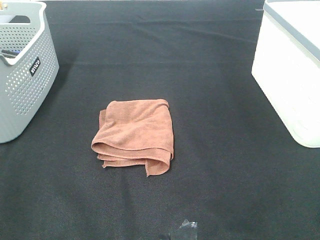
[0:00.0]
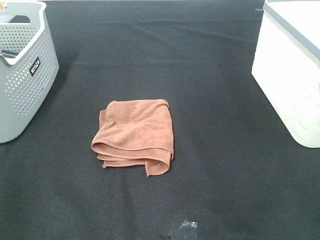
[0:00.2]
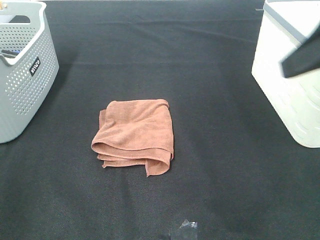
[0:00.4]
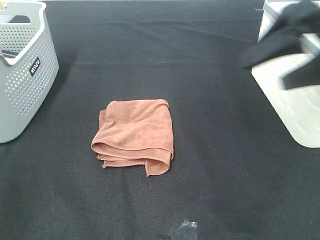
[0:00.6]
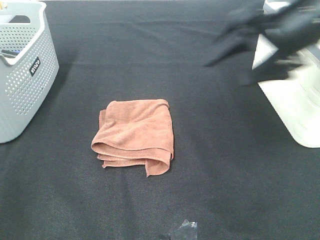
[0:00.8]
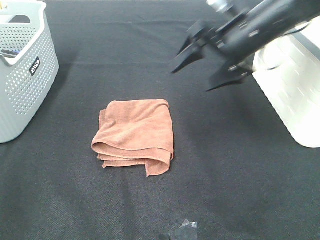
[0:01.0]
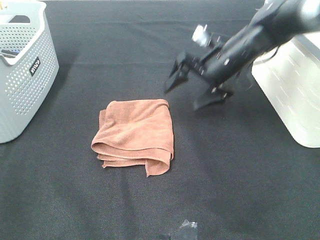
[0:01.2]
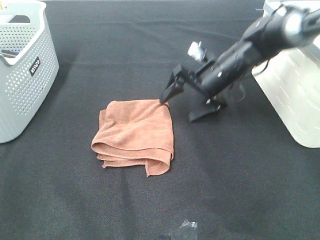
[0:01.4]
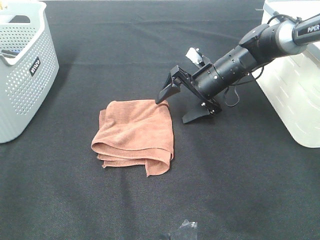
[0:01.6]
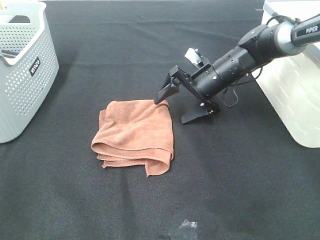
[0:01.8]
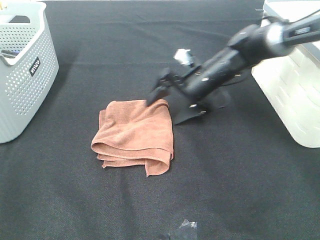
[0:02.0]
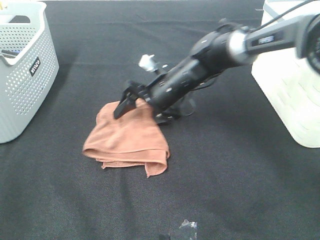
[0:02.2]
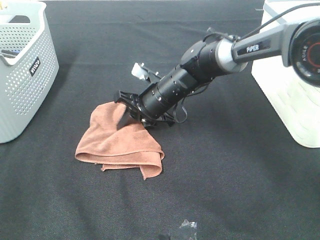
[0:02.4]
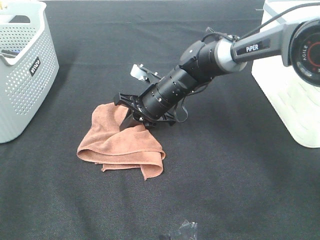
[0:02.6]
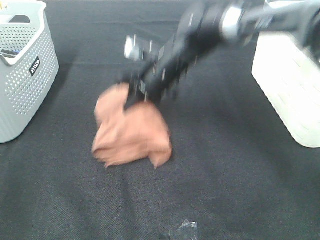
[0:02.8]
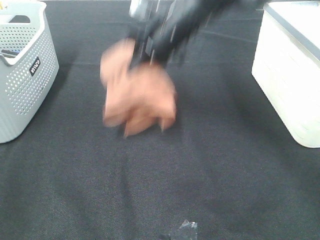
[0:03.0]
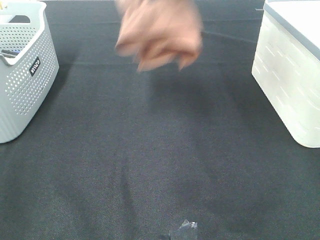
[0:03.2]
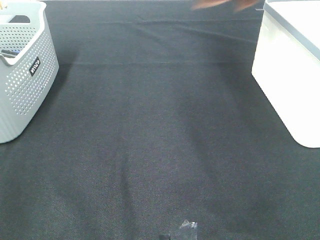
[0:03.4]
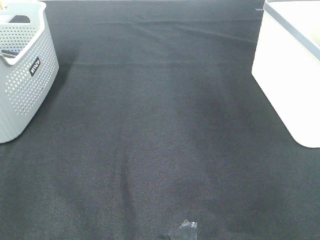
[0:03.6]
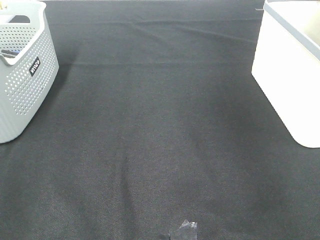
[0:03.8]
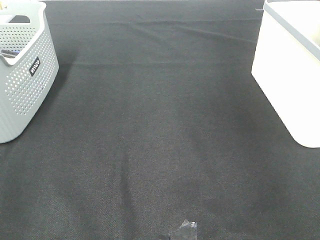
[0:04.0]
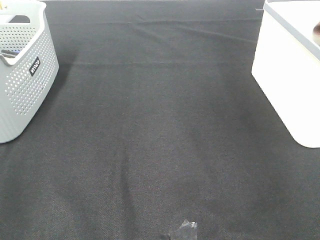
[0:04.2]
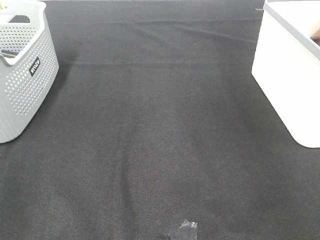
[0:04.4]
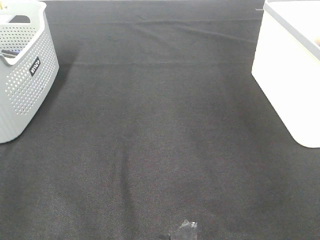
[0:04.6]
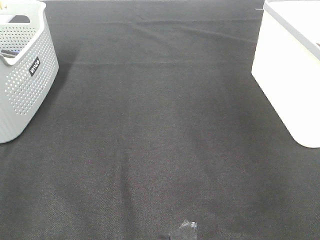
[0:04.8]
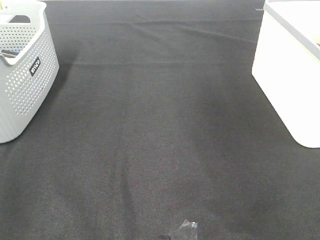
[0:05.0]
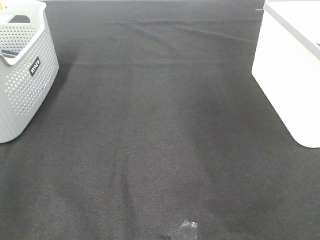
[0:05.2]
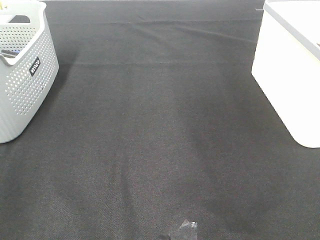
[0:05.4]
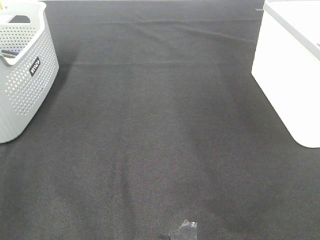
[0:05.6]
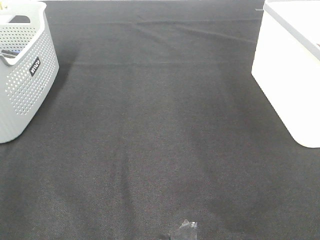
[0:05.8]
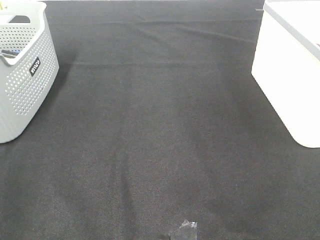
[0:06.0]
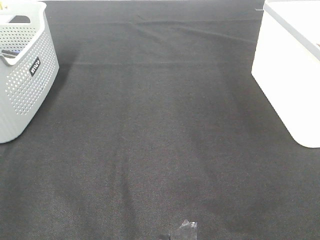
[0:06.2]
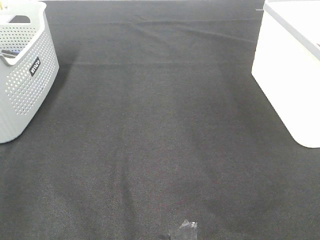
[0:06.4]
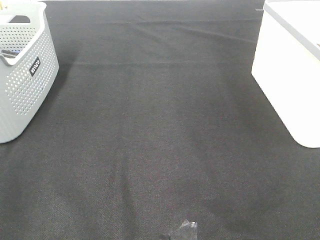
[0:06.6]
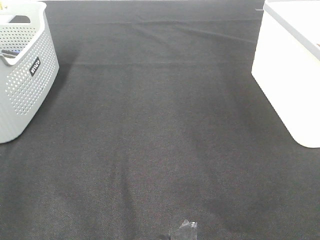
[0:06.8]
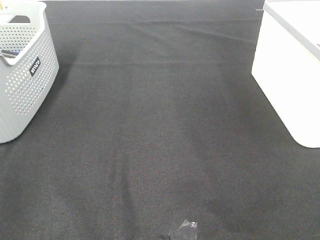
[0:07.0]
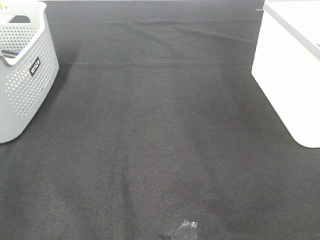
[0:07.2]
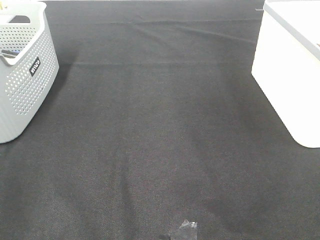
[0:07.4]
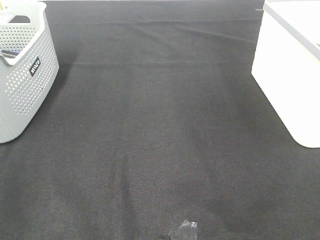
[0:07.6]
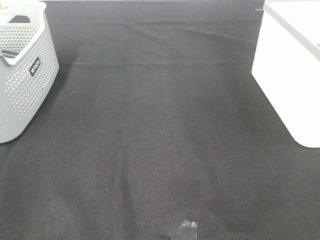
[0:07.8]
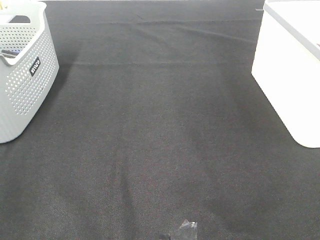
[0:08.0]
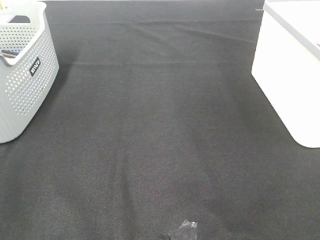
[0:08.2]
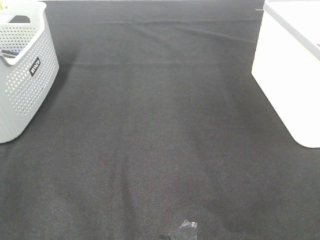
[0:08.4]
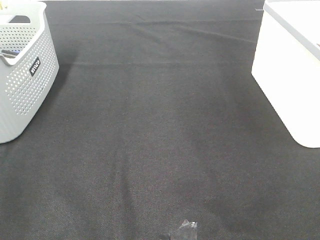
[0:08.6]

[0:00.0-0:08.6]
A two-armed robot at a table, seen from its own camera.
Step, 0:00.0 to 0:02.4: Right hand: grab the folded brown towel.
Step, 0:02.6 to 0:04.6: Right hand: place the brown towel in right basket.
0:00.0 to 0:01.4: The right gripper travels forward, downward and to the left by approximately 40 cm.
0:01.4 to 0:02.8: The right gripper moves to the left, approximately 10 cm, and closes its fingers.
0:02.8 to 0:04.4: The right gripper shifts roughly 40 cm to the right and upward, and opens.
0:07.2 to 0:08.6: The two grippers keep their place.

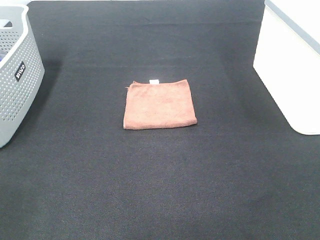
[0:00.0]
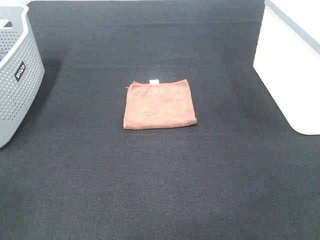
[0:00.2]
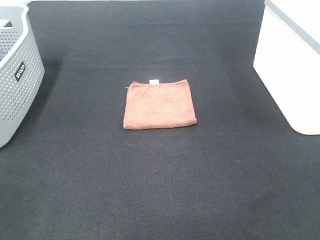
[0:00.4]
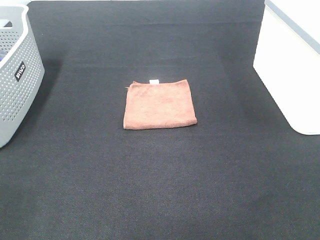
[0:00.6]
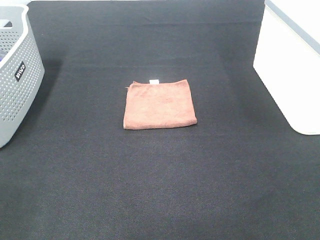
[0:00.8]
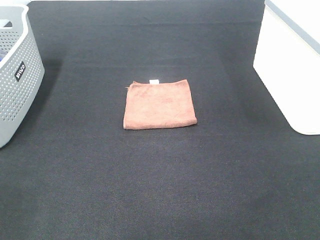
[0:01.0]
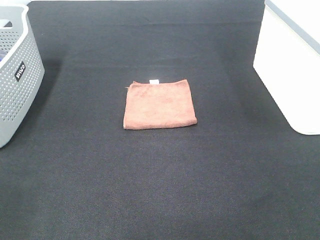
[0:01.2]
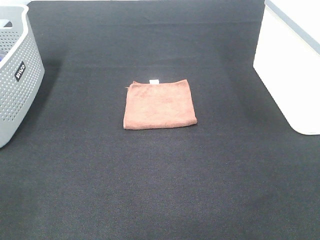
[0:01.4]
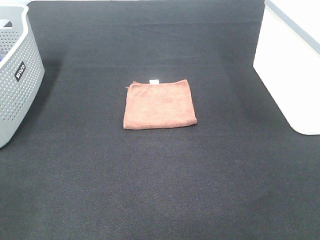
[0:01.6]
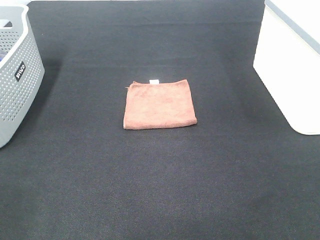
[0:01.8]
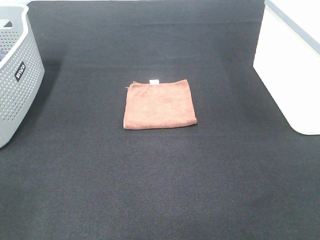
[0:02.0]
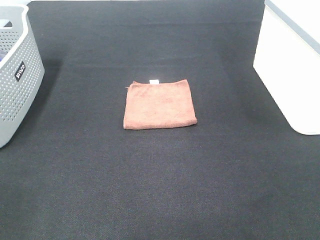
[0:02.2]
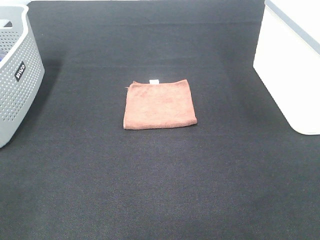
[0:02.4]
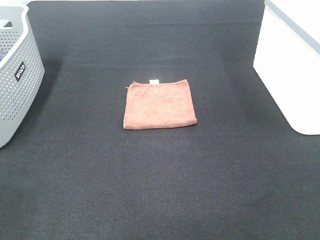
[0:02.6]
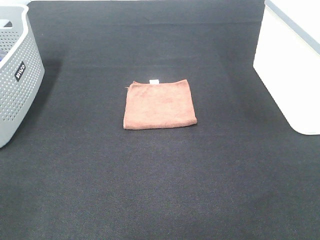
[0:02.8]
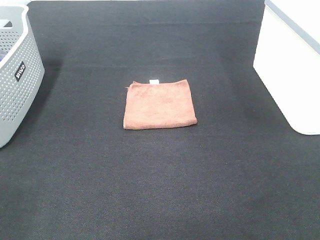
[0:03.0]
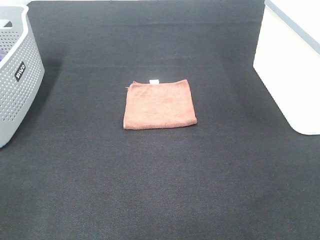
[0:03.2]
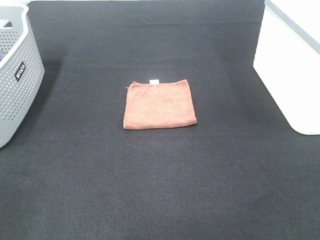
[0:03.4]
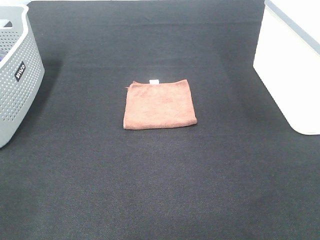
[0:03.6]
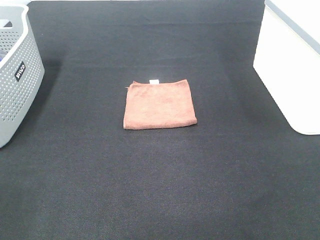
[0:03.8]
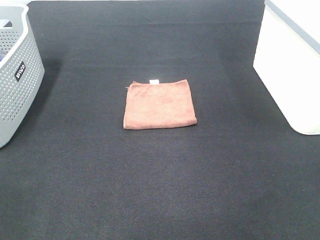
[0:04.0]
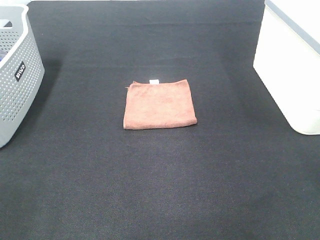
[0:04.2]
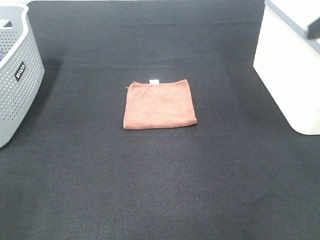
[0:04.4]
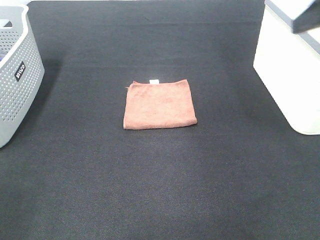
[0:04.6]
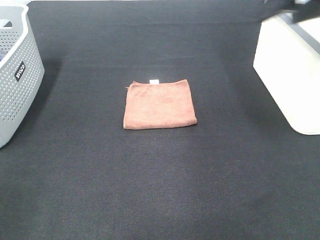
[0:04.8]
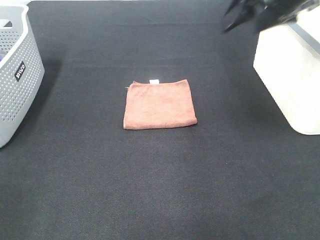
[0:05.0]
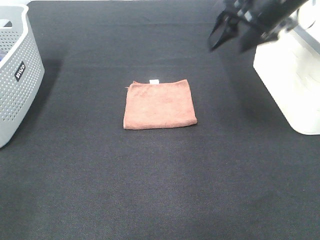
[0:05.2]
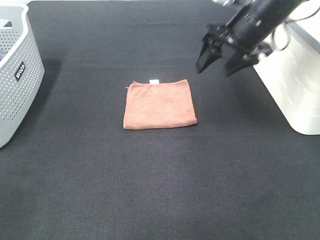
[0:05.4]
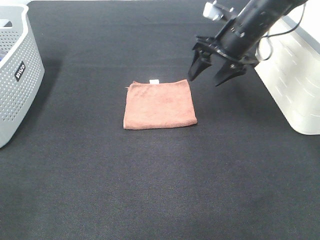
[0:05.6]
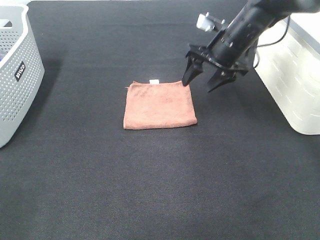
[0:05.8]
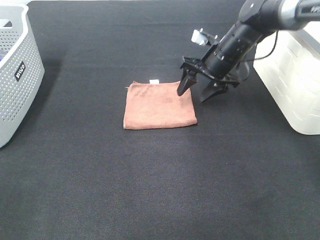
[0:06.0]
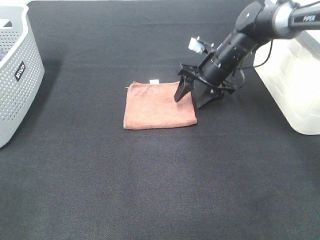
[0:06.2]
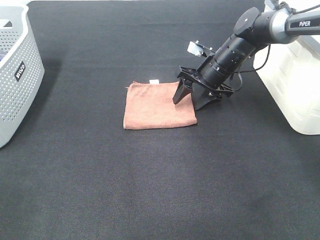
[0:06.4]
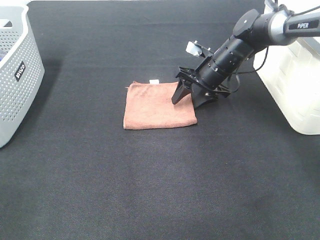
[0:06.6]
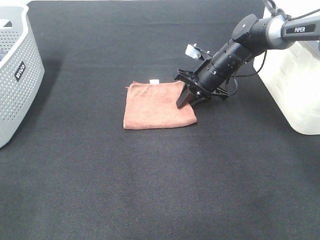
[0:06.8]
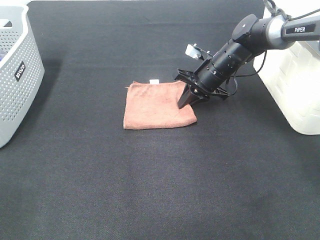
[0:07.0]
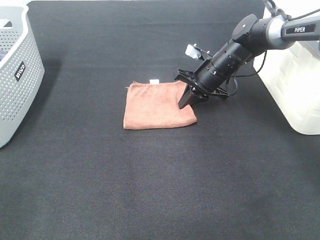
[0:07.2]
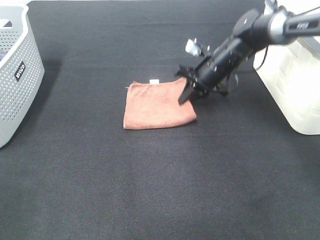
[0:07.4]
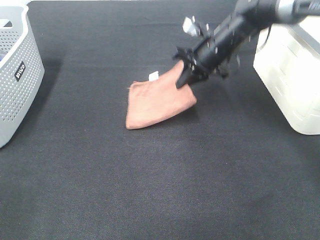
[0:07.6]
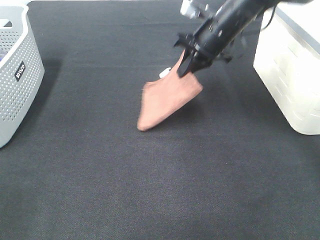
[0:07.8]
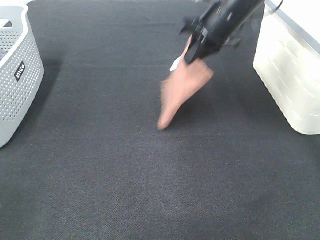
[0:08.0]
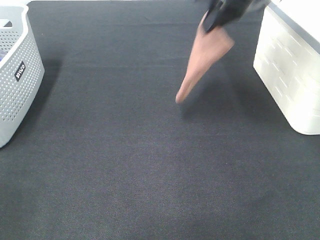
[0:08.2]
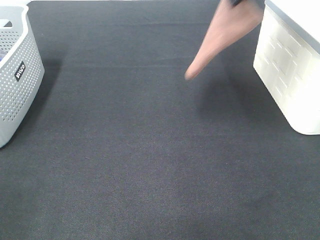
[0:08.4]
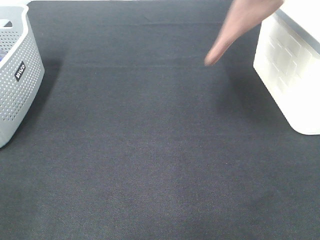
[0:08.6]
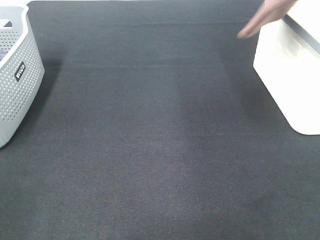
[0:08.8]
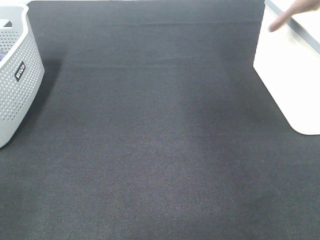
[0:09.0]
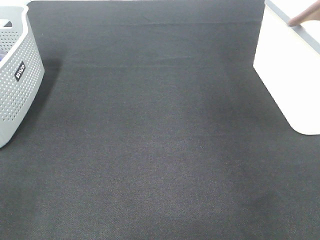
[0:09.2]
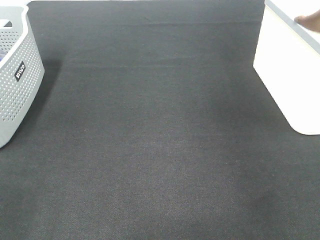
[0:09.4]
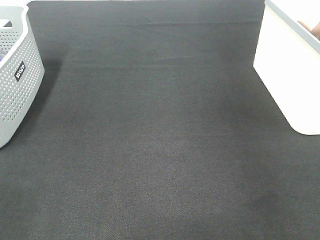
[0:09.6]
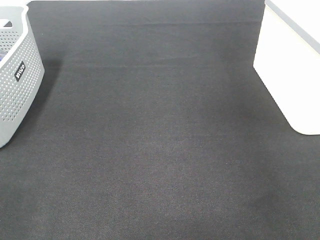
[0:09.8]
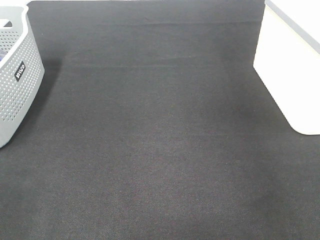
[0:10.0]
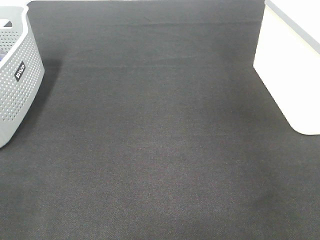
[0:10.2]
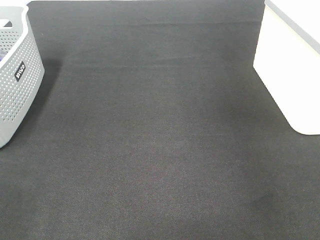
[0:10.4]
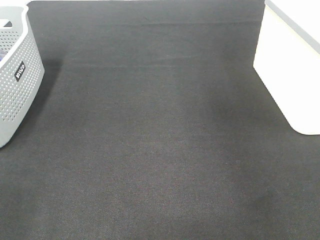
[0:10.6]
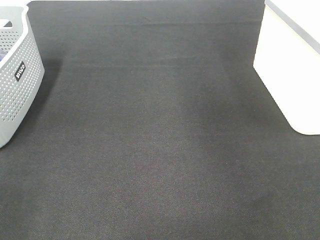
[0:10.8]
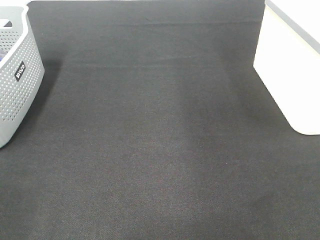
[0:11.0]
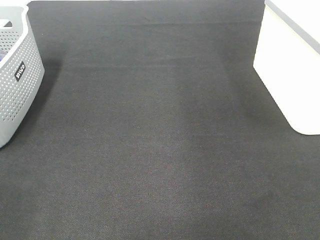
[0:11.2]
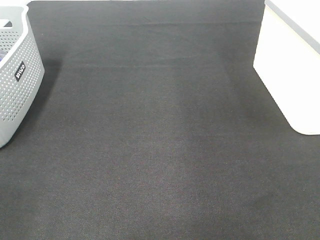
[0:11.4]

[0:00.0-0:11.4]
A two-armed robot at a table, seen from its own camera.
Step, 0:00.0 to 0:07.0: Right hand: grab the folded brown towel.
Step, 0:07.2 to 0:10.0: Right hand: place the brown towel in right basket.
0:00.0 to 0:02.8: Neither gripper changes place.
0:04.2 to 0:05.6: The right gripper shifts about 30 cm forward, downward and to the left.
0:05.6 to 0:07.2: The right gripper is displaced downward by some 10 cm, and closes.
0:07.2 to 0:08.6: The right gripper is displaced upward by about 30 cm.
0:08.6 to 0:10.0: The right gripper travels to the right by some 20 cm, and opens up.

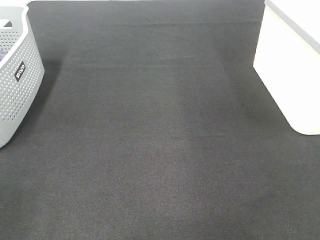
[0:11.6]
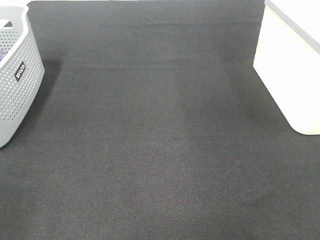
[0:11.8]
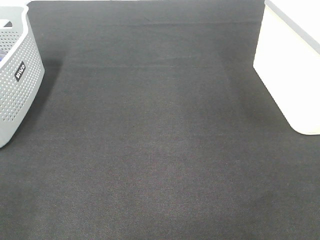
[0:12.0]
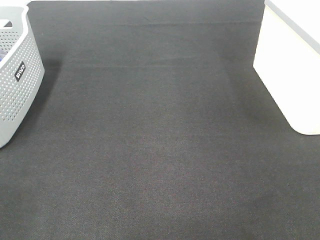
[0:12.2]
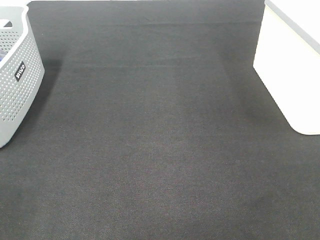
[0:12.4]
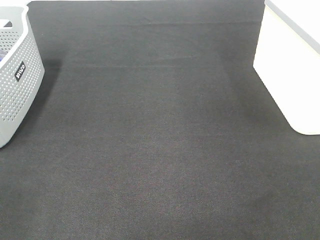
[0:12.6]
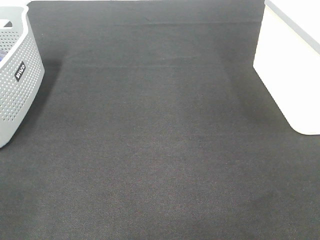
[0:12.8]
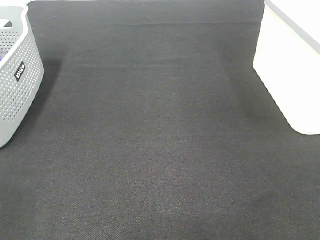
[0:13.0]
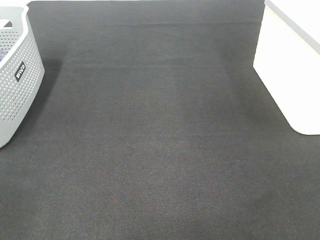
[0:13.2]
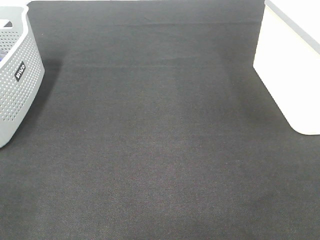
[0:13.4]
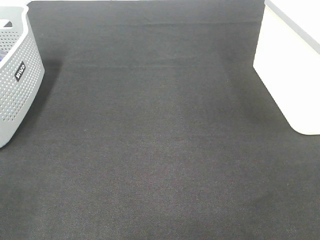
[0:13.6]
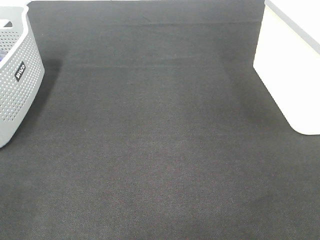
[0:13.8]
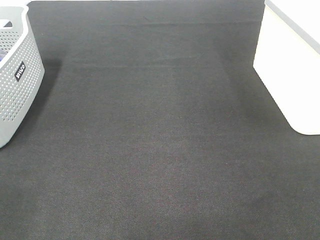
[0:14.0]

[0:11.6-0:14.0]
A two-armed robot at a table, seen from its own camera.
0:12.8 to 0:14.0: The two grippers keep their place.
